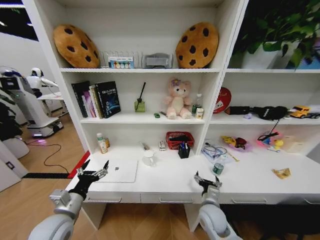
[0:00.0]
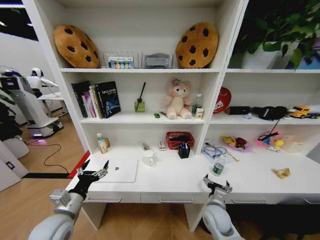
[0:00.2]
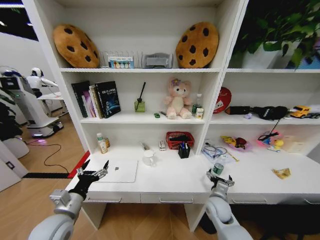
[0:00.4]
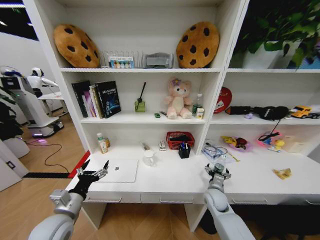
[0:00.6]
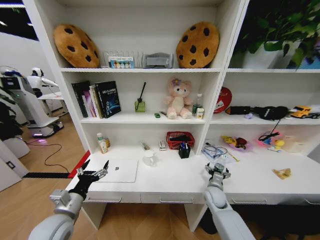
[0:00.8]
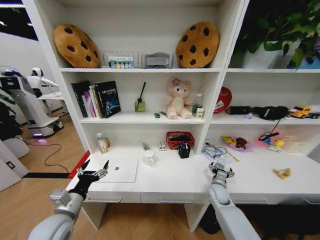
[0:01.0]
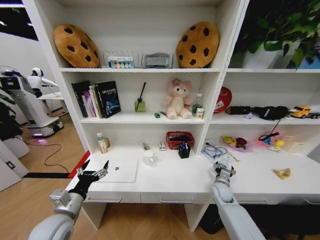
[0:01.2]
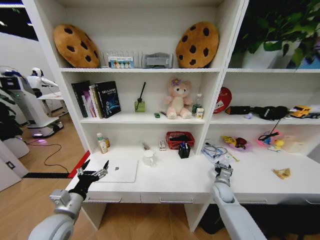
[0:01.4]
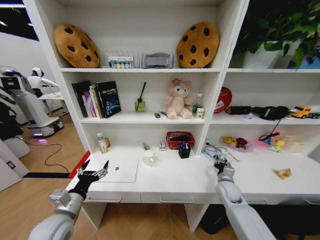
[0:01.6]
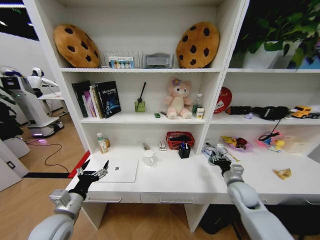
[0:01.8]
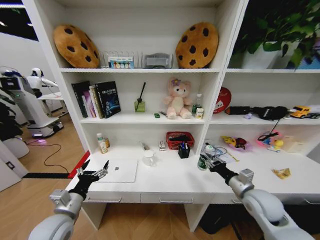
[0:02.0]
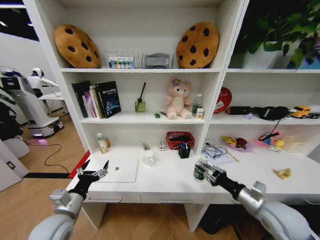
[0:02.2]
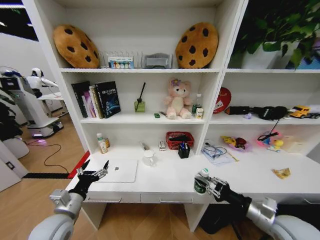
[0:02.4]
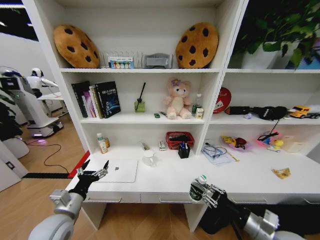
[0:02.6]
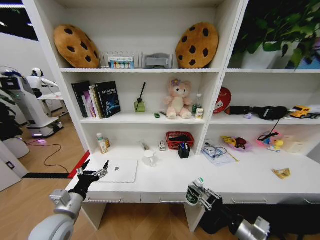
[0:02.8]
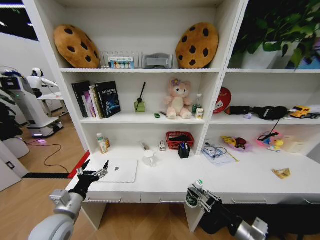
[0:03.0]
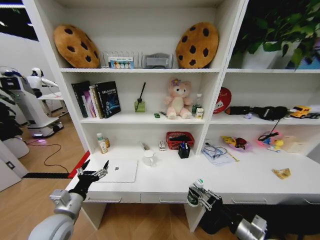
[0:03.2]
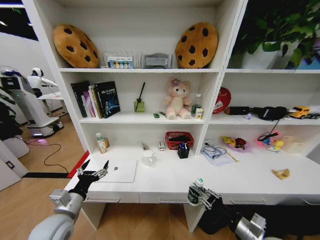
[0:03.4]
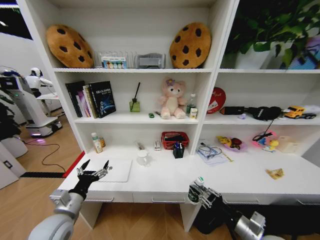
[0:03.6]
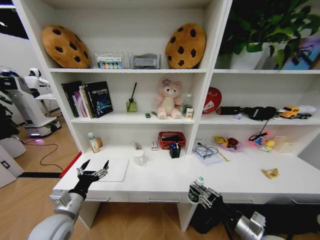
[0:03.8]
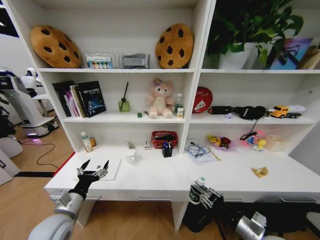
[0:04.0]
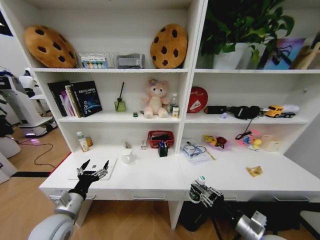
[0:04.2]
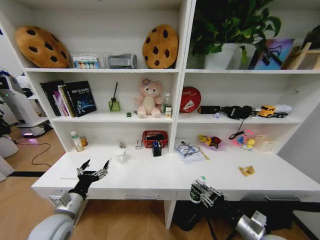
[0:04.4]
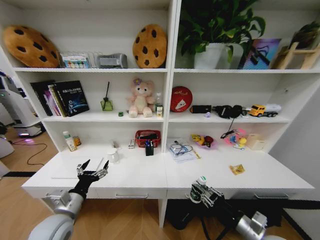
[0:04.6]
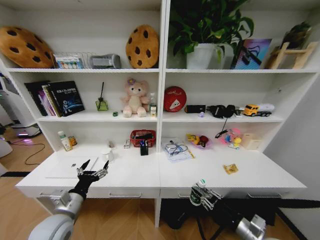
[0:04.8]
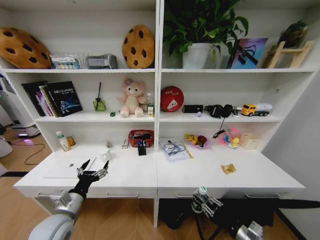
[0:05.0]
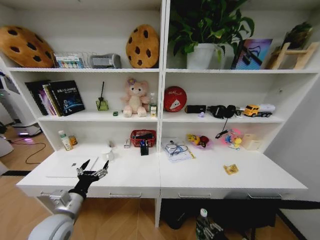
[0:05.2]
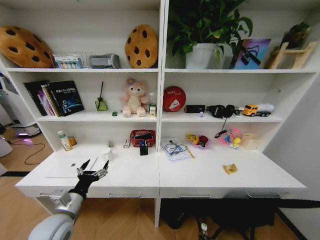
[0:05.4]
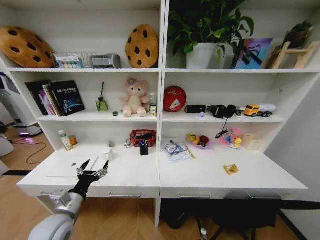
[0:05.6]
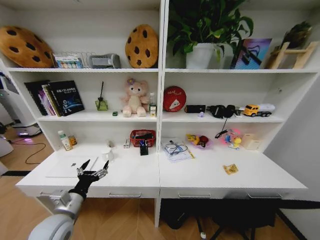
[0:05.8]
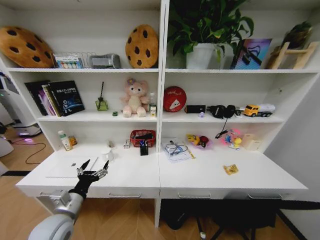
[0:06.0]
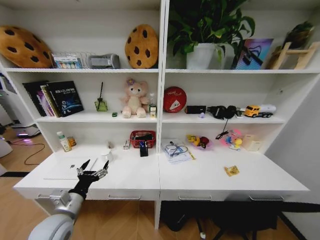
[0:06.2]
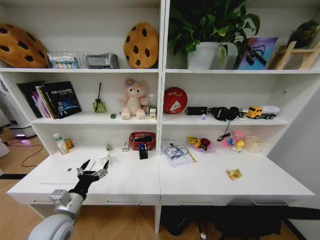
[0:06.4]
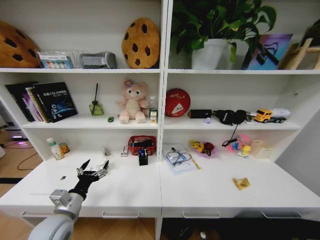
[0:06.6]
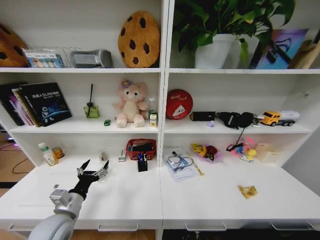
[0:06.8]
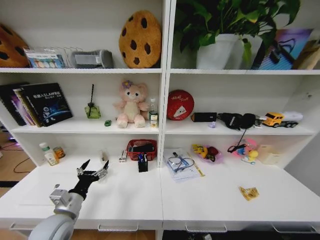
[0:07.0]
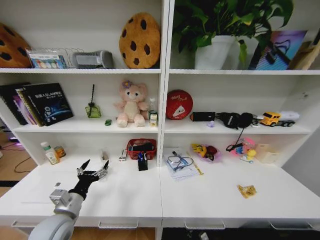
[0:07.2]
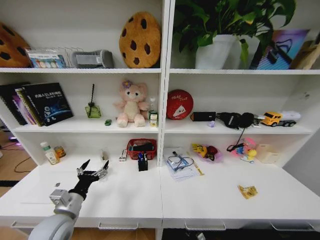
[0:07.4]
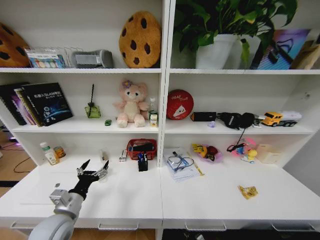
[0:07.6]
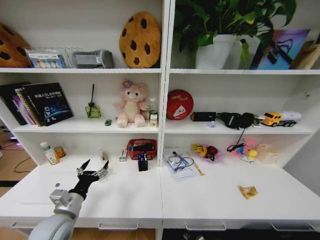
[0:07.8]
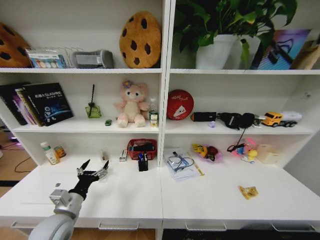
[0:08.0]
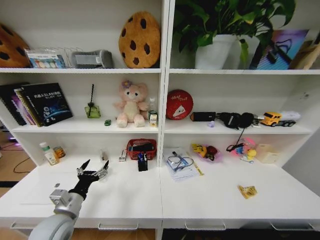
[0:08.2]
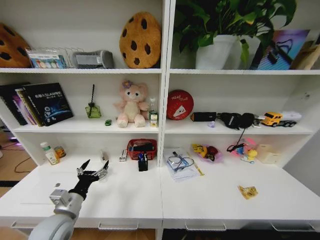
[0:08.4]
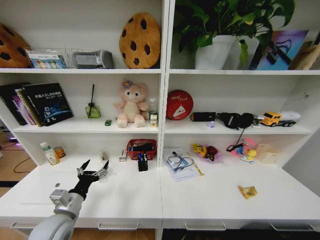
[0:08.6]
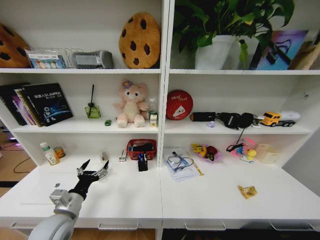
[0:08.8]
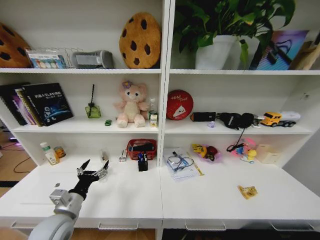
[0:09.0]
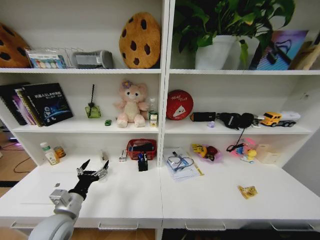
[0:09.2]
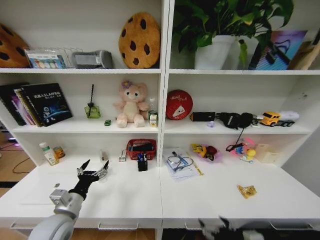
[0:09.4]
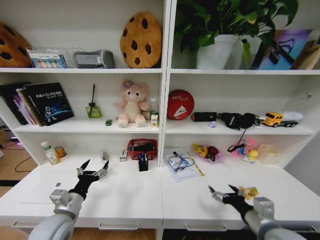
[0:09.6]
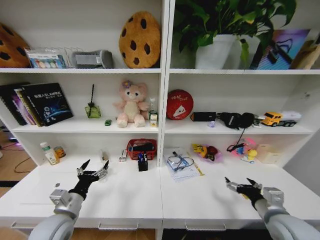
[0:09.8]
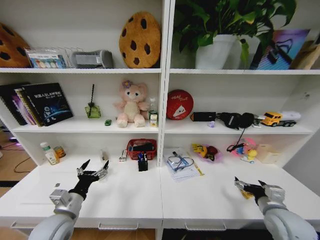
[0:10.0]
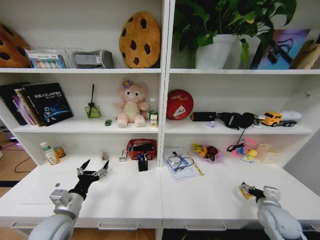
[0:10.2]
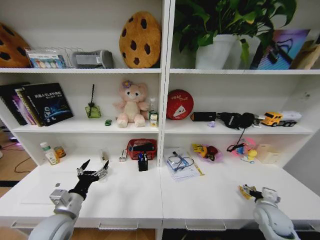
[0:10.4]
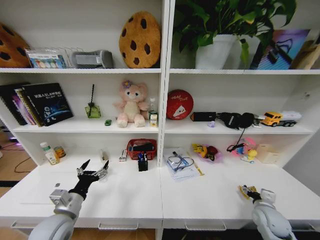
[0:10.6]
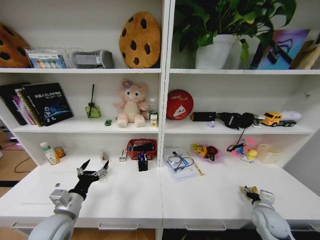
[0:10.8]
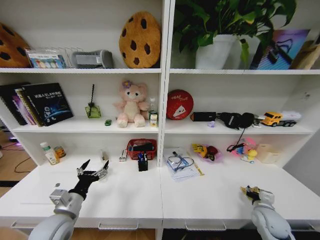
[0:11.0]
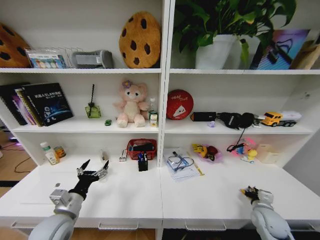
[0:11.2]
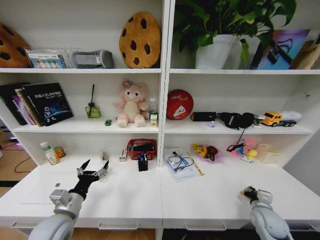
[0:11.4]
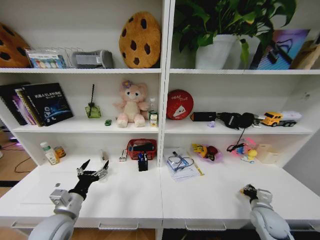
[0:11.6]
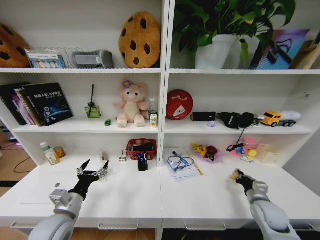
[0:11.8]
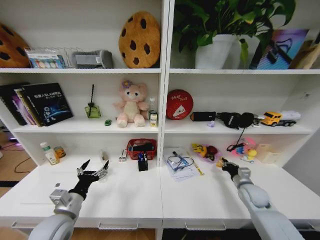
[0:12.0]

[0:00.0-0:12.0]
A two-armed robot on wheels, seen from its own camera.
Task of the whole recording: Organize the objects on the table.
0:00.0 to 0:01.6: The right gripper moves to the right and forward, approximately 15 cm, and closes up.
0:01.6 to 0:03.0: The right gripper moves backward, approximately 25 cm.
0:04.4 to 0:06.0: The right gripper moves downward, about 35 cm.
0:06.0 to 0:07.6: The right gripper travels forward and downward by about 10 cm.
0:07.6 to 0:09.0: The right gripper travels upward and backward by approximately 40 cm, and opens.
0:09.0 to 0:10.4: The right gripper moves forward and to the right, about 35 cm.
0:10.4 to 0:12.0: The right gripper goes roughly 10 cm forward, and closes.

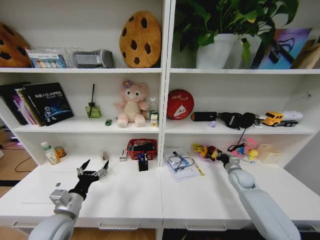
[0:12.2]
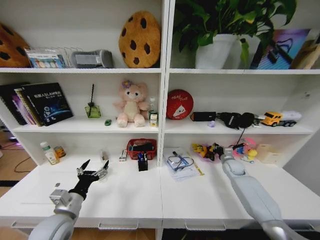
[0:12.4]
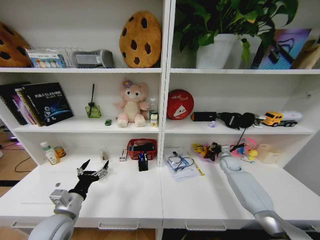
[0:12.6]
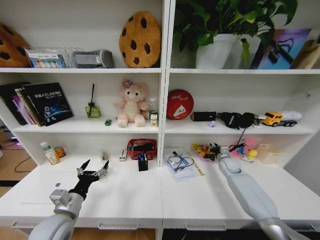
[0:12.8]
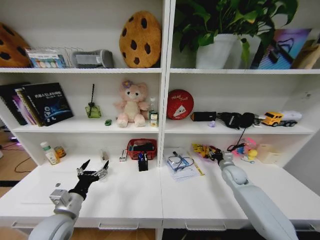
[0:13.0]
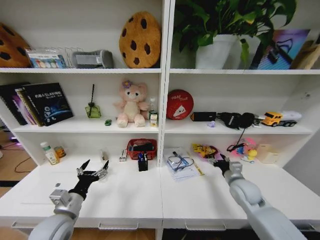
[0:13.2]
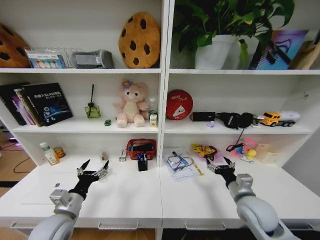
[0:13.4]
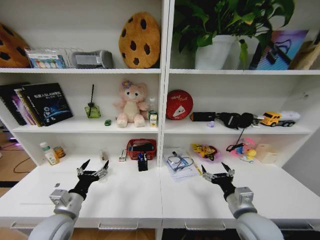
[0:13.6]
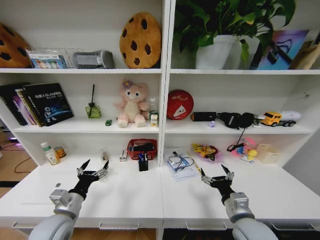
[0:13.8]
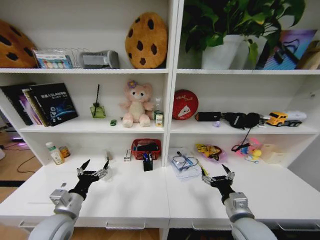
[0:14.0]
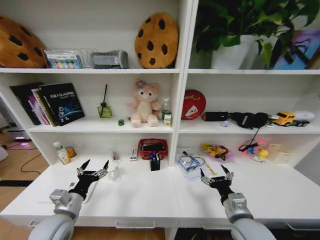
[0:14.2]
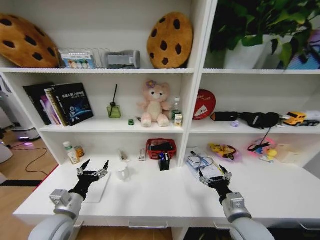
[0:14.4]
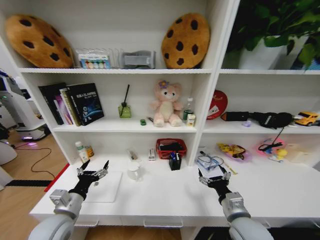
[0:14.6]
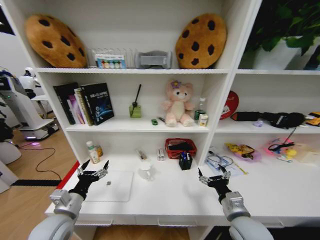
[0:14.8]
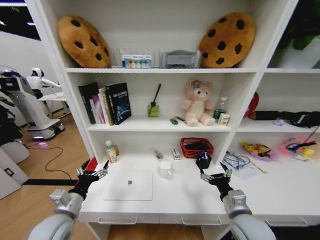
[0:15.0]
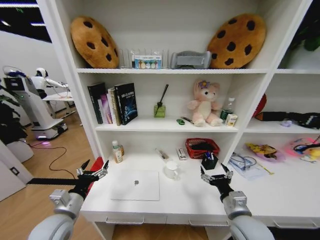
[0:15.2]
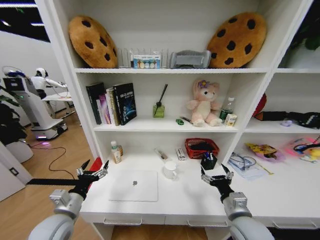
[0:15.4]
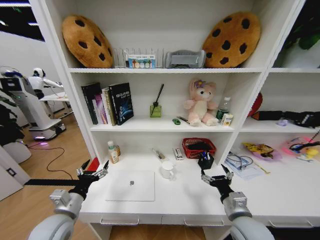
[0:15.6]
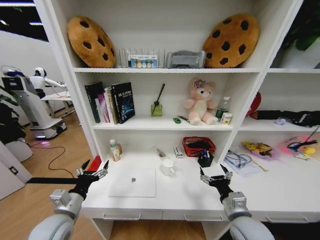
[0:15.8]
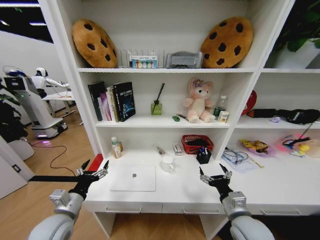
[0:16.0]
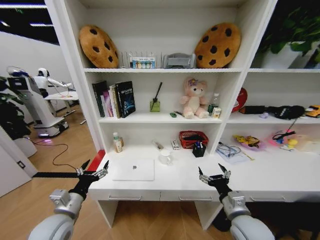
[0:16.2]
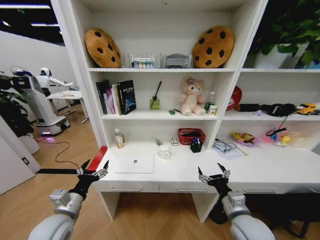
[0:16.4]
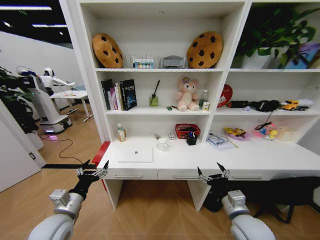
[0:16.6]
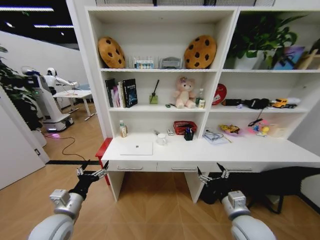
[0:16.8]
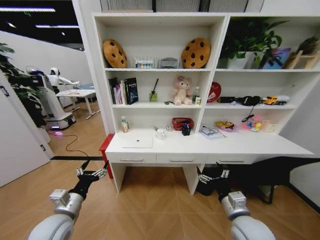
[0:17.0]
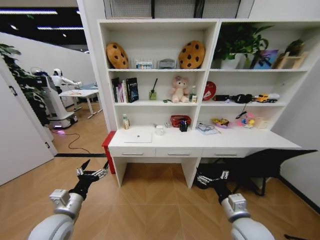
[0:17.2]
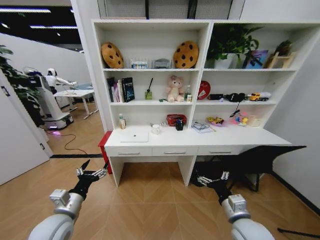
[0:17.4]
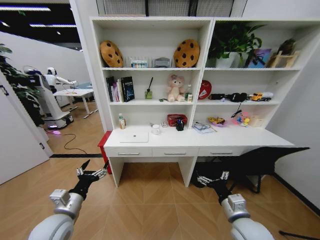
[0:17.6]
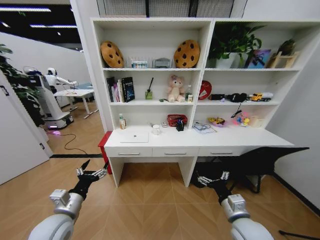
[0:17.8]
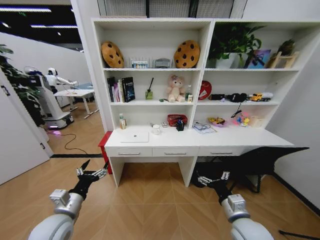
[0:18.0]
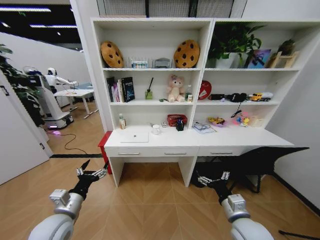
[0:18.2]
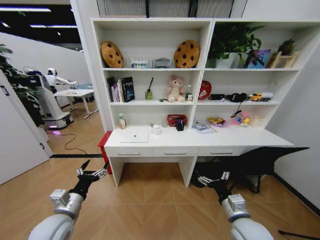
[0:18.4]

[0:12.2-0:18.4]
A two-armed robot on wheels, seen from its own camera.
Task of the whole recording: Organize the objects on the table.
0:12.2 to 0:13.8: The right gripper shifts some 30 cm backward and to the left, and opens its fingers.

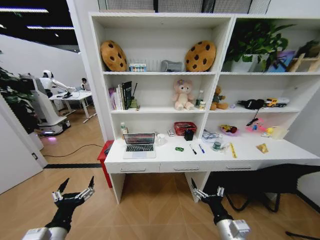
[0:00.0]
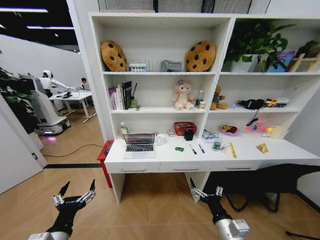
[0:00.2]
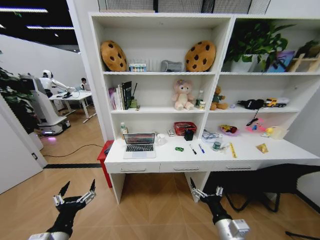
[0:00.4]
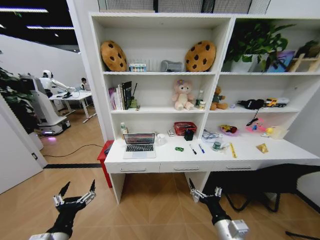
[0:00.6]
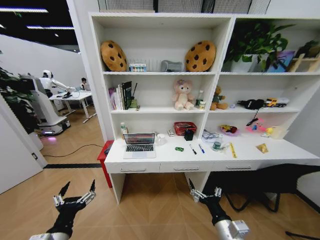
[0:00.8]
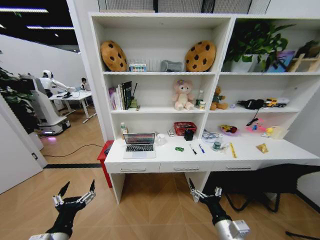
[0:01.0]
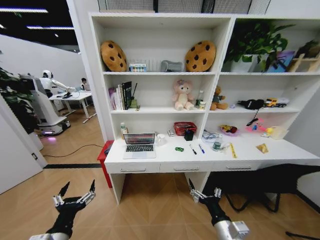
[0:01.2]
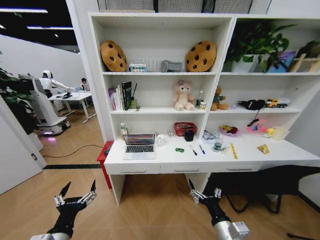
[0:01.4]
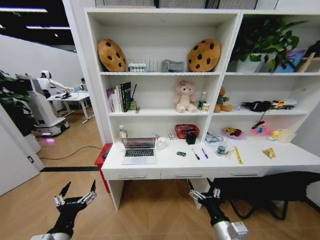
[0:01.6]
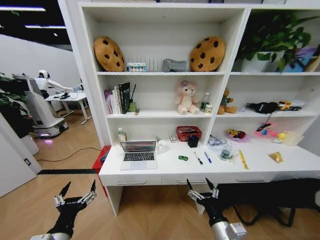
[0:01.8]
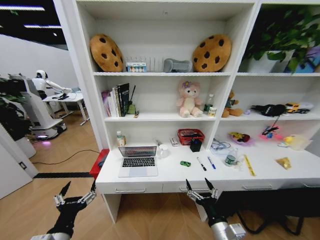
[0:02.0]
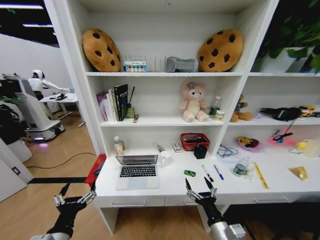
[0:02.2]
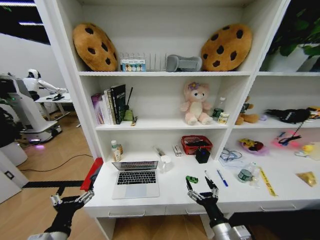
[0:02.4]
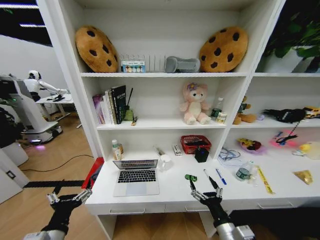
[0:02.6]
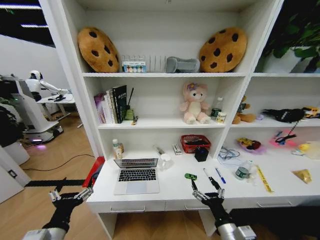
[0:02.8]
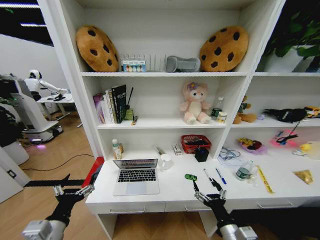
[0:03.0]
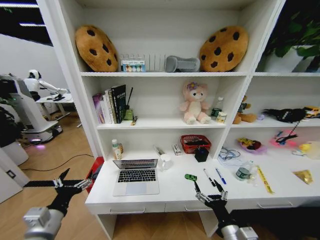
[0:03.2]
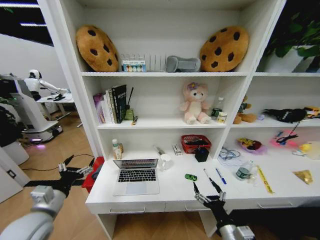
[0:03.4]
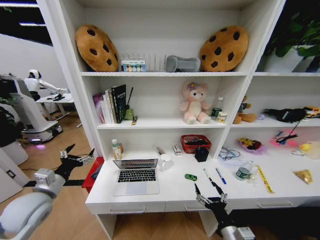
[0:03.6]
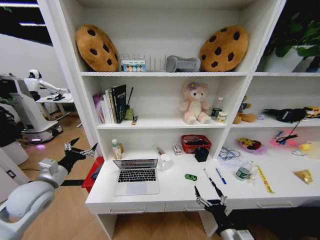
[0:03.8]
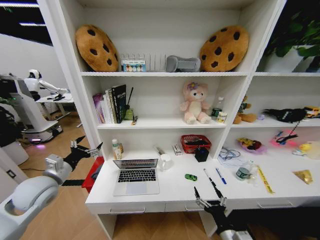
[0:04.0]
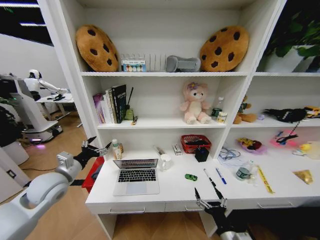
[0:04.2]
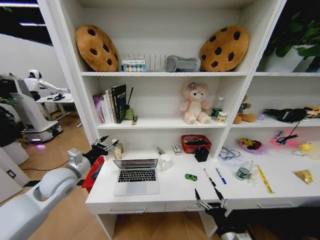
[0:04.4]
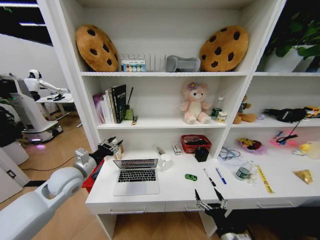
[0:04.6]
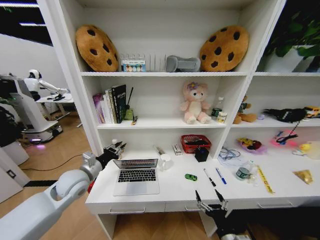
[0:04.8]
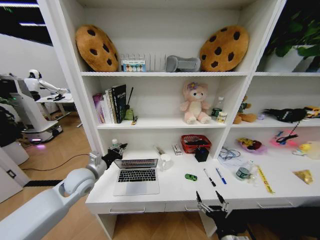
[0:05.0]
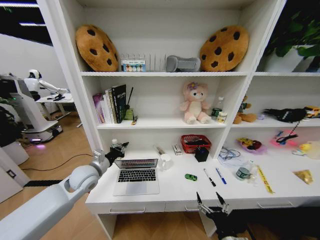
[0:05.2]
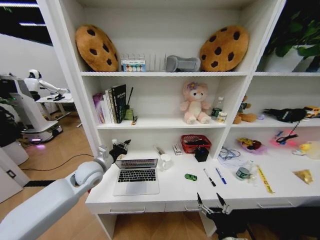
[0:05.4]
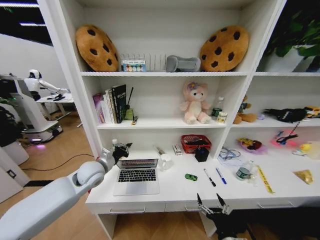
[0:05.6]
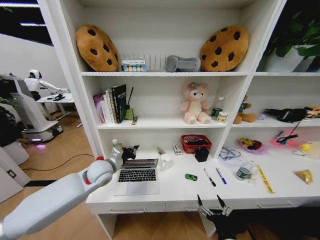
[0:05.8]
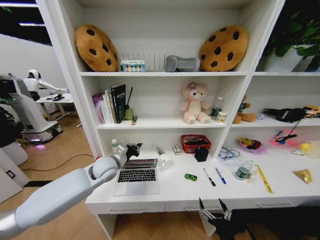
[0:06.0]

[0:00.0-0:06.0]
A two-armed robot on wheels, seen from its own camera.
Task of the whole recording: Organize the objects on the table.
0:03.0 to 0:04.4: The left gripper heads forward, covering roughly 20 cm.
0:04.4 to 0:06.0: The left gripper shifts roughly 15 cm to the right and forward, and closes its fingers. The right gripper moves approximately 5 cm.
